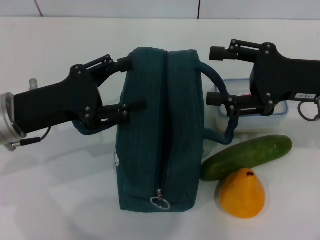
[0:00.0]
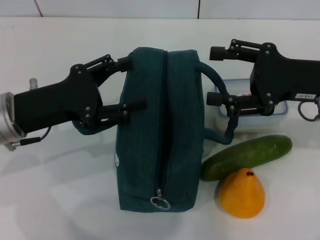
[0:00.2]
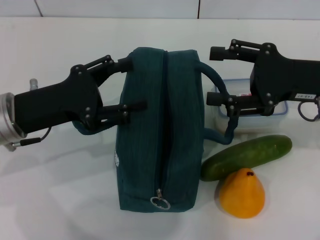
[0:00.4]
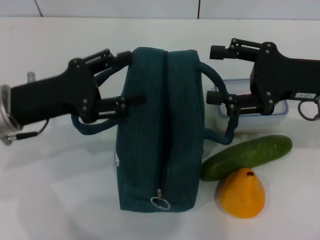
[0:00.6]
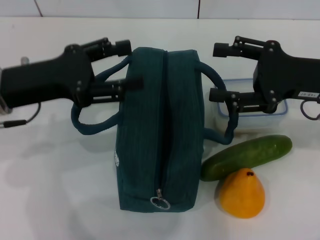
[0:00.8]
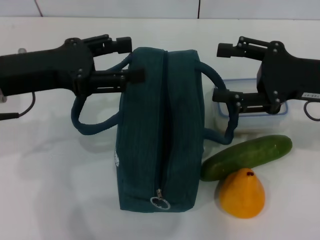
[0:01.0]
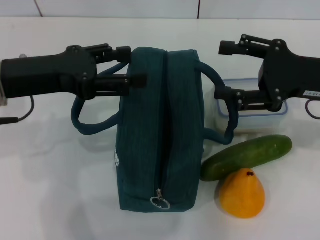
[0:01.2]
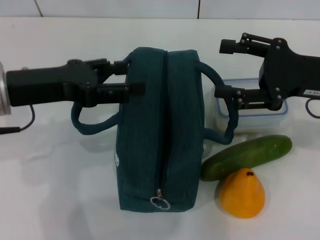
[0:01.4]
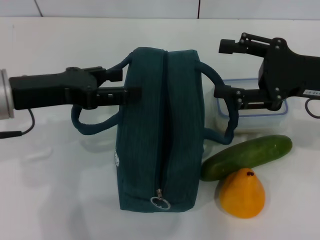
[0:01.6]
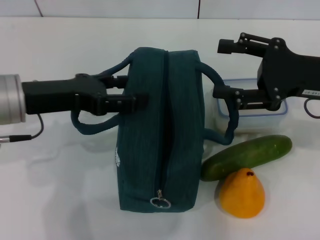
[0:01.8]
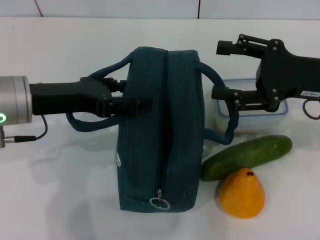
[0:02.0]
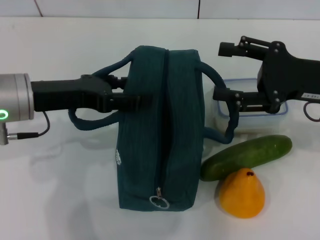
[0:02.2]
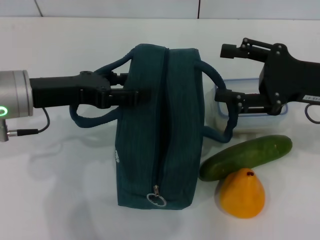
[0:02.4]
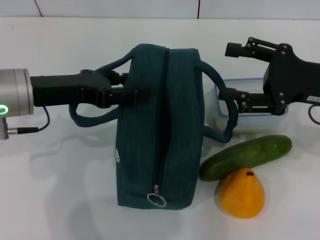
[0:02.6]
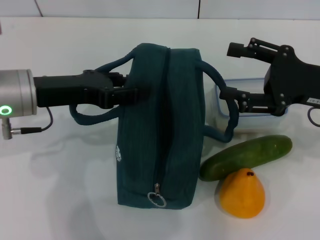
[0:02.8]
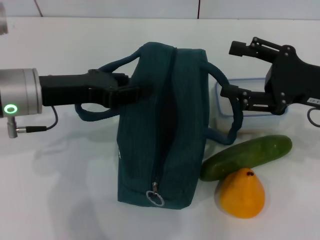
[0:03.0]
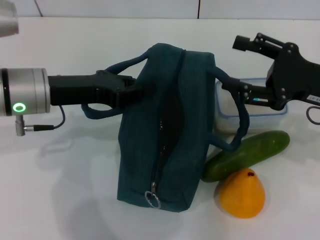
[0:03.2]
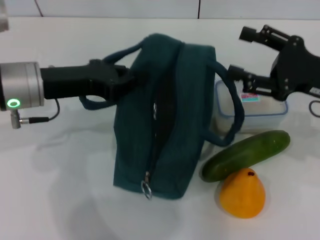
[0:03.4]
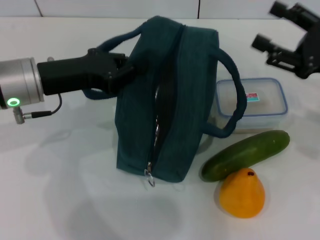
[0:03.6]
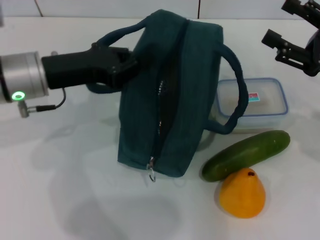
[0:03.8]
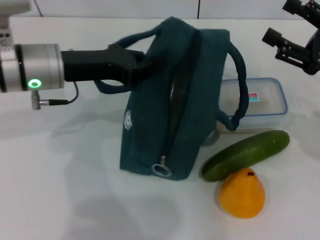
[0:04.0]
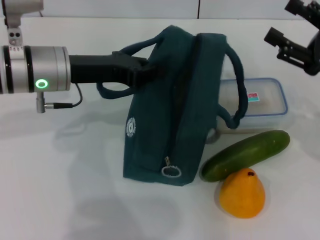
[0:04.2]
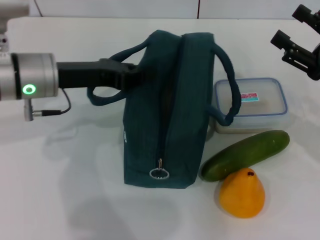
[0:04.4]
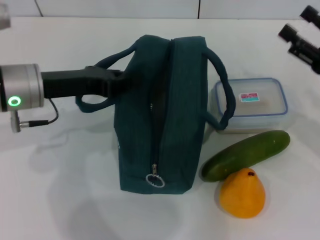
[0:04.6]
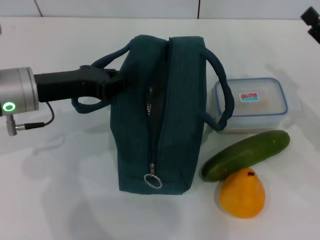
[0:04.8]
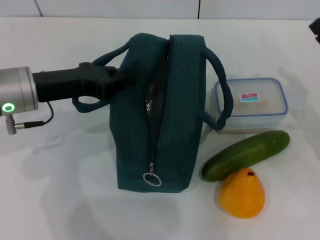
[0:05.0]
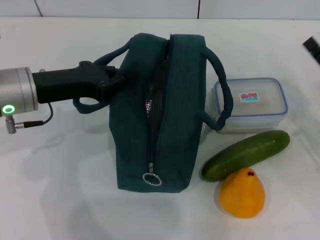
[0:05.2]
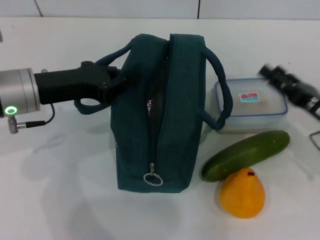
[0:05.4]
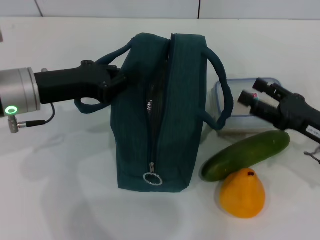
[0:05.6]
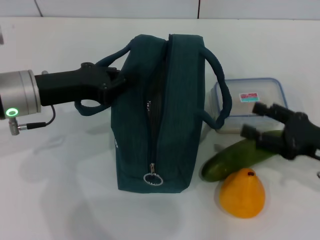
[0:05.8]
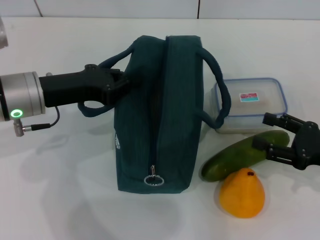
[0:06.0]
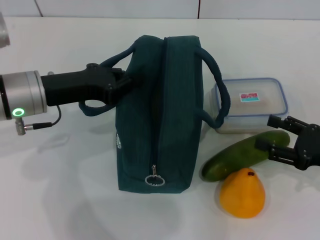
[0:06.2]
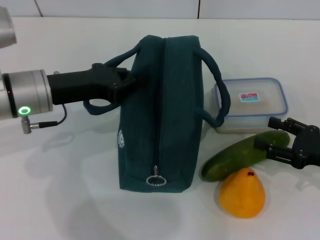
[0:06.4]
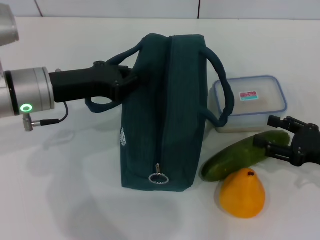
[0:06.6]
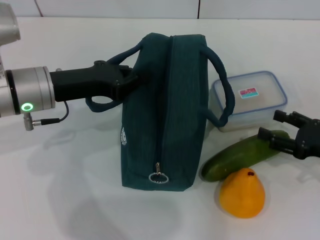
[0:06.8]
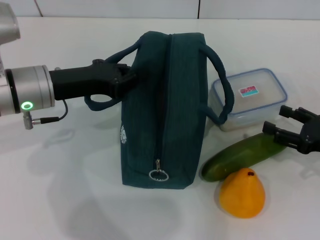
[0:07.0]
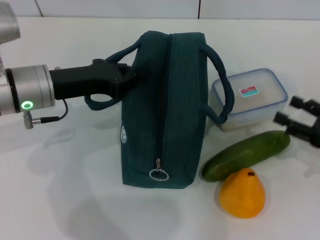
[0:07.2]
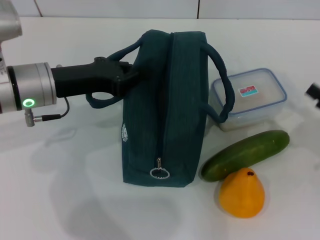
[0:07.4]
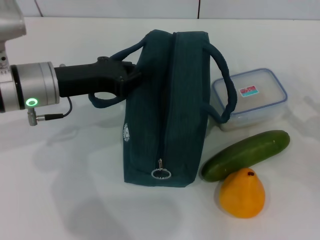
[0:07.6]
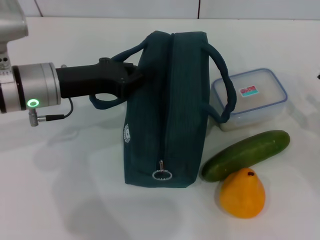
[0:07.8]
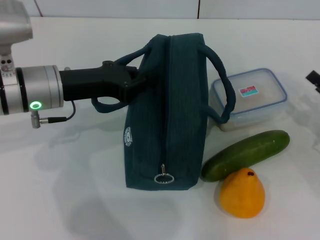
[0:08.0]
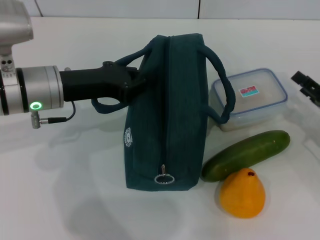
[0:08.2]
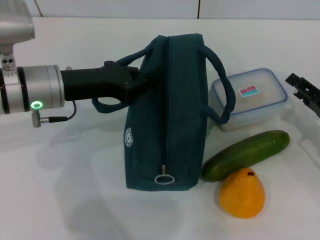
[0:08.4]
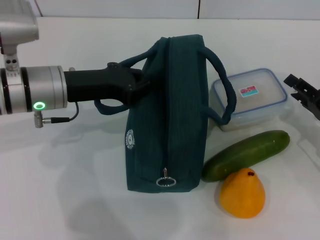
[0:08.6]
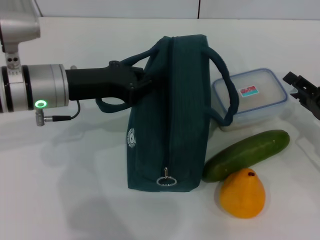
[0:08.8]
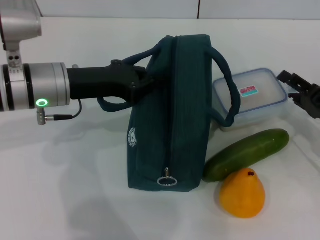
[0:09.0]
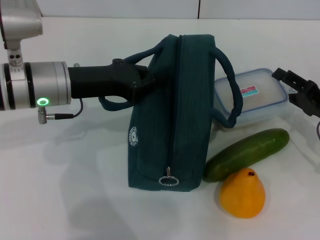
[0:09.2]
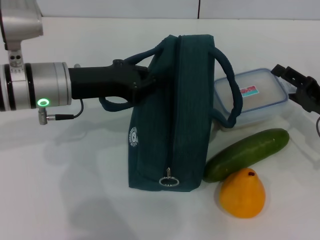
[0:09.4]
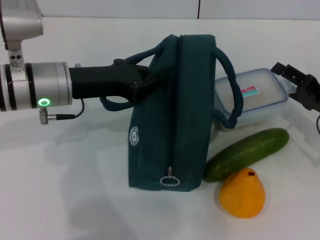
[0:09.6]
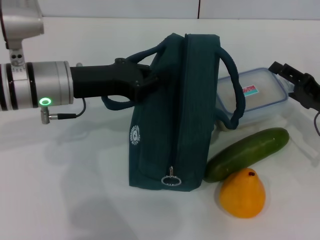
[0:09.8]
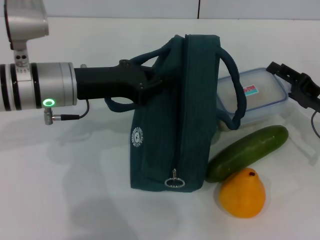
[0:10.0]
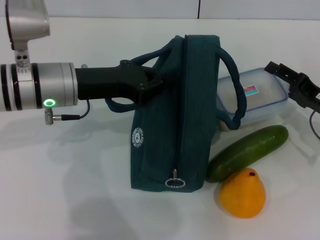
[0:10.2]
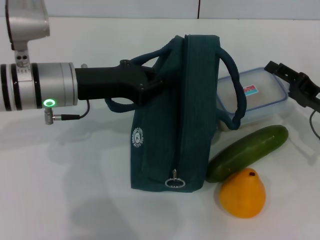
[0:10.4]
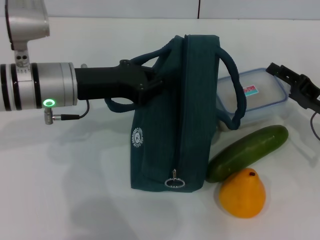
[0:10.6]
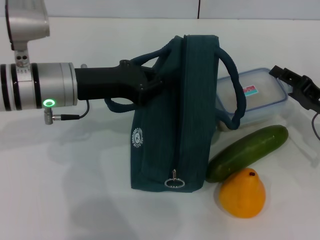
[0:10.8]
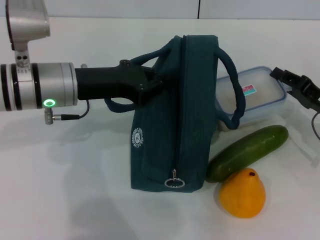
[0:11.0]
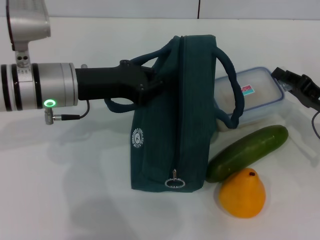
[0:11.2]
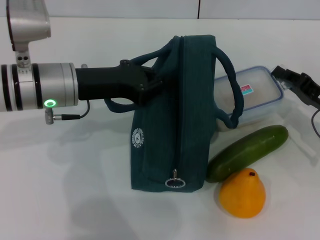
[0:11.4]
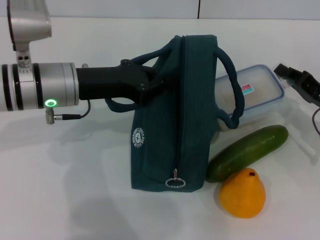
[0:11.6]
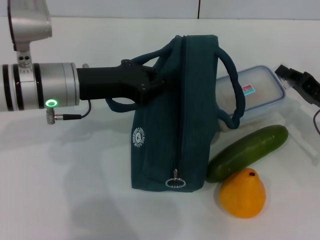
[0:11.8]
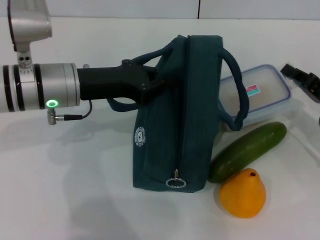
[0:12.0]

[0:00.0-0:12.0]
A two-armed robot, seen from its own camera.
Step, 0:00.0 to 0:03.6: Hold the lunch bag with your left hand.
Step, 0:03.8 to 0:11.6: Pick up the lunch box with your right hand.
0:01.6 to 0:03.0: The left gripper closes up.
0:03.0 to 0:04.4: The left gripper closes its fingers.
0:04.4 to 0:06.0: The right gripper travels downward and backward by roughly 10 cm.
0:07.6 to 0:09.0: The right gripper moves forward, some 5 cm.
0:09.0 to 0:10.4: The grippers move only a little.
0:10.4 to 0:12.0: The right gripper closes.

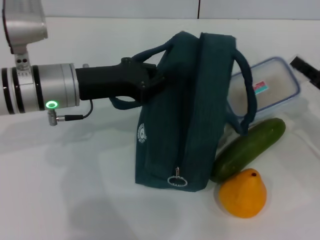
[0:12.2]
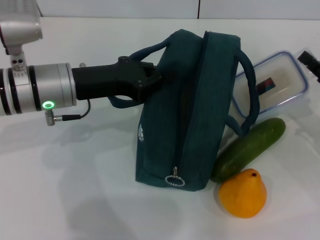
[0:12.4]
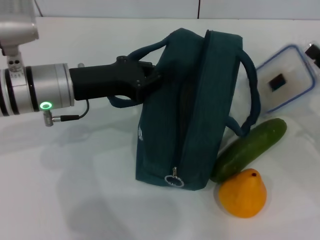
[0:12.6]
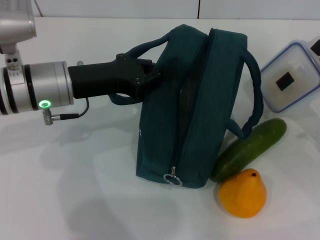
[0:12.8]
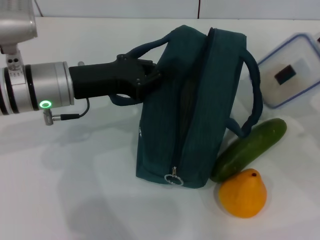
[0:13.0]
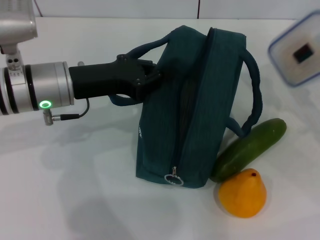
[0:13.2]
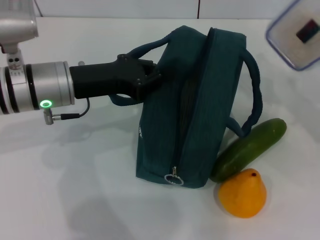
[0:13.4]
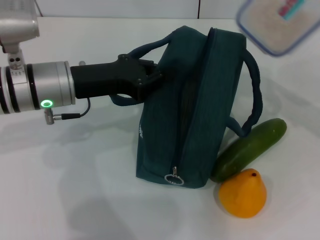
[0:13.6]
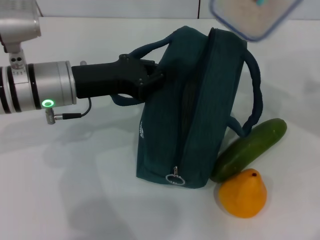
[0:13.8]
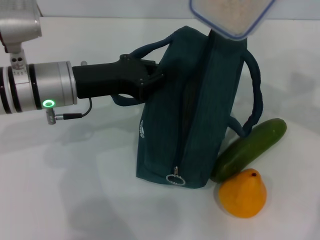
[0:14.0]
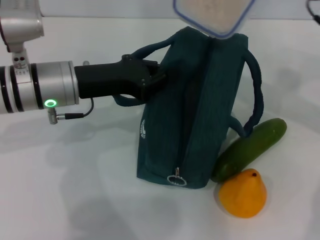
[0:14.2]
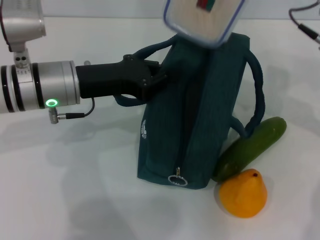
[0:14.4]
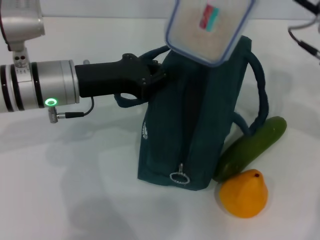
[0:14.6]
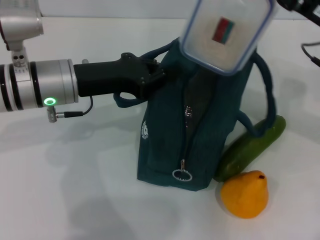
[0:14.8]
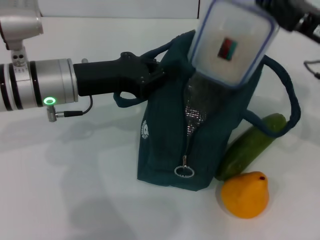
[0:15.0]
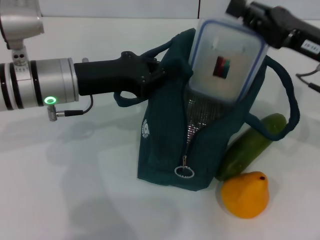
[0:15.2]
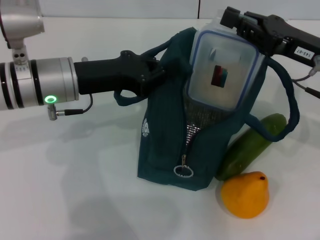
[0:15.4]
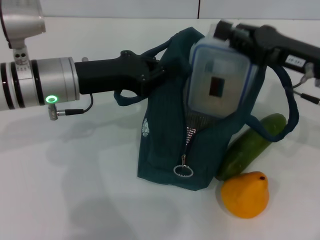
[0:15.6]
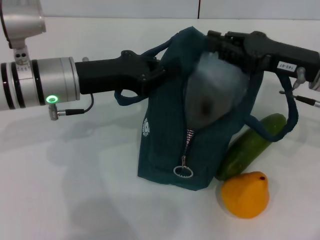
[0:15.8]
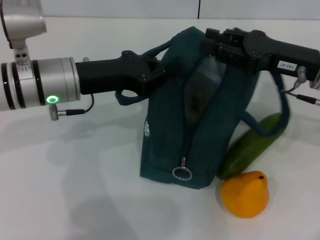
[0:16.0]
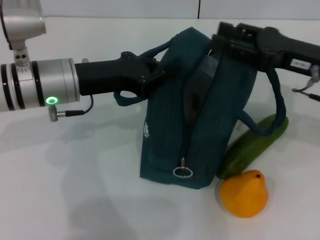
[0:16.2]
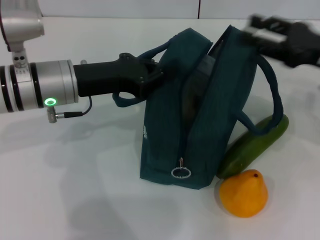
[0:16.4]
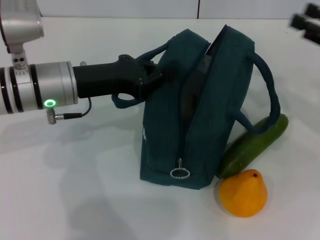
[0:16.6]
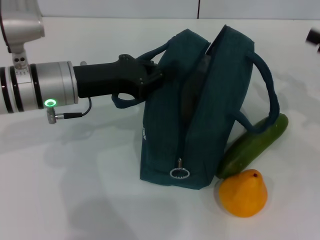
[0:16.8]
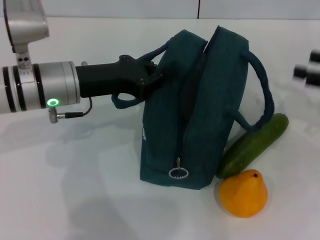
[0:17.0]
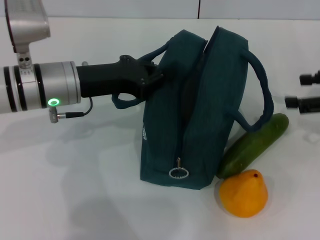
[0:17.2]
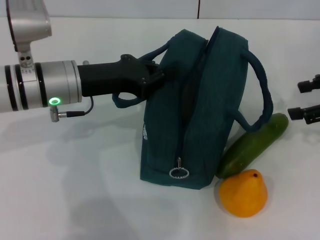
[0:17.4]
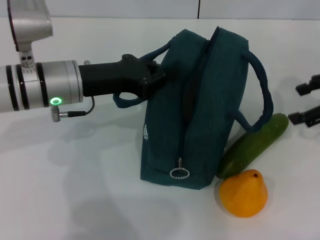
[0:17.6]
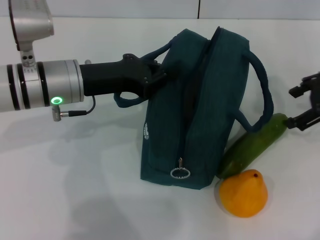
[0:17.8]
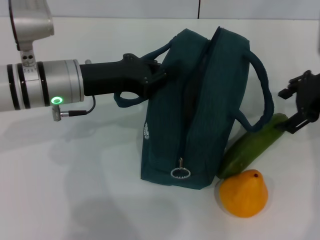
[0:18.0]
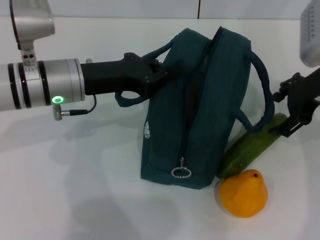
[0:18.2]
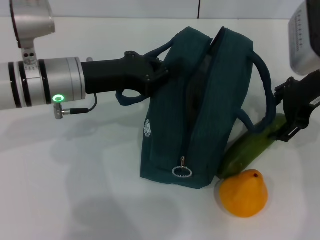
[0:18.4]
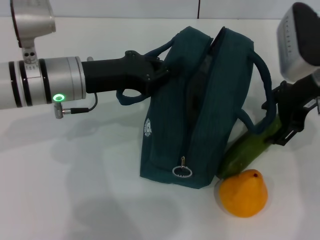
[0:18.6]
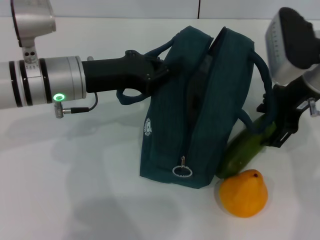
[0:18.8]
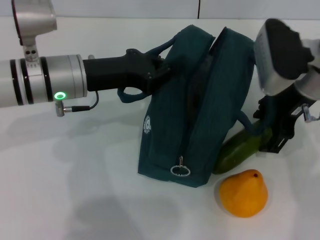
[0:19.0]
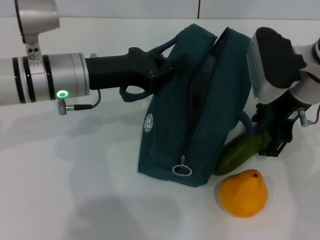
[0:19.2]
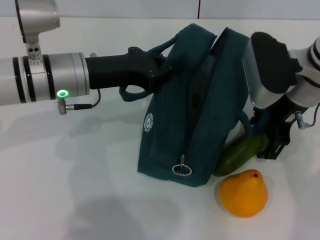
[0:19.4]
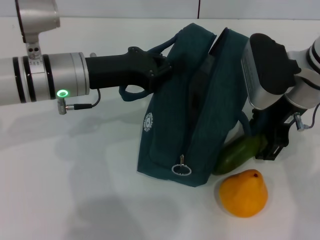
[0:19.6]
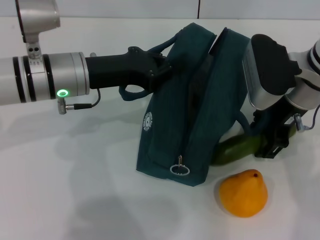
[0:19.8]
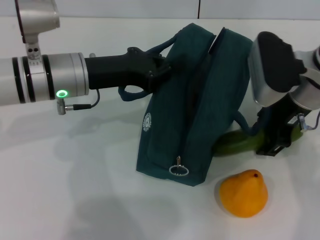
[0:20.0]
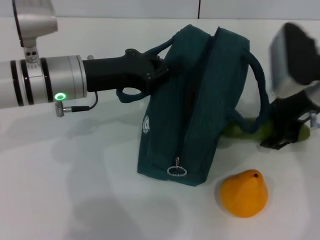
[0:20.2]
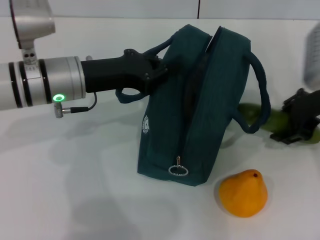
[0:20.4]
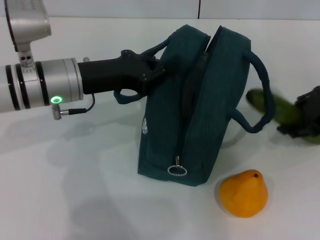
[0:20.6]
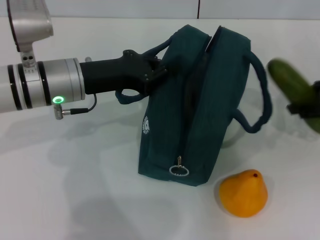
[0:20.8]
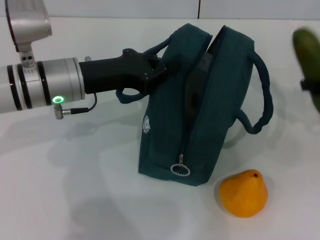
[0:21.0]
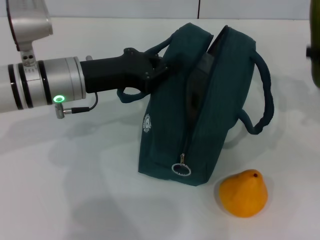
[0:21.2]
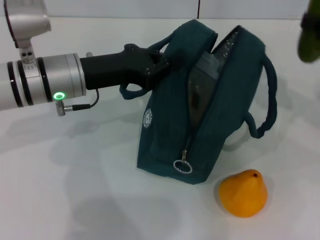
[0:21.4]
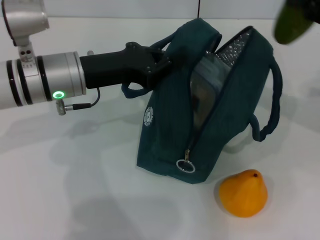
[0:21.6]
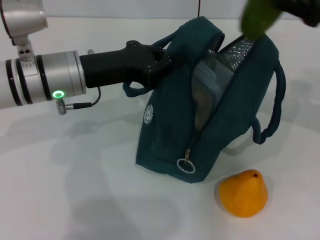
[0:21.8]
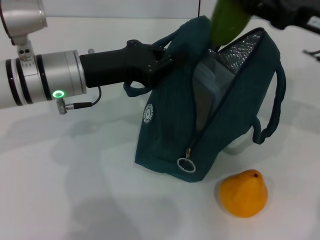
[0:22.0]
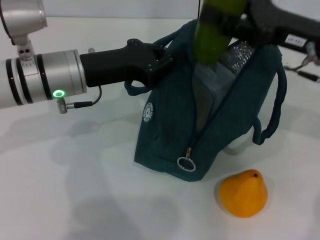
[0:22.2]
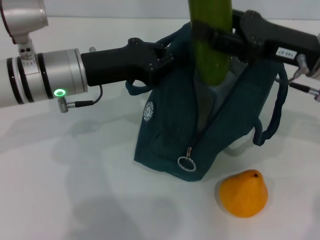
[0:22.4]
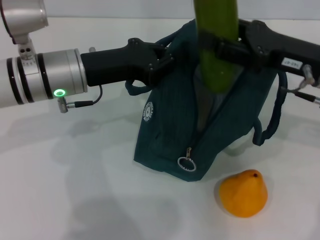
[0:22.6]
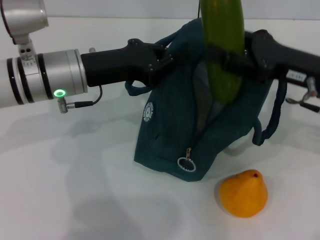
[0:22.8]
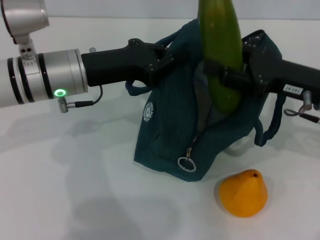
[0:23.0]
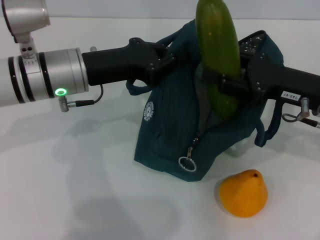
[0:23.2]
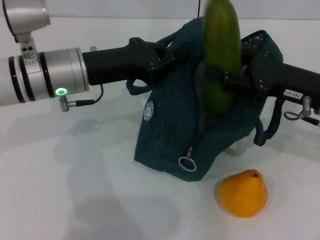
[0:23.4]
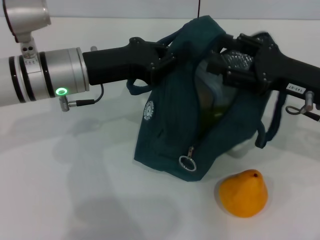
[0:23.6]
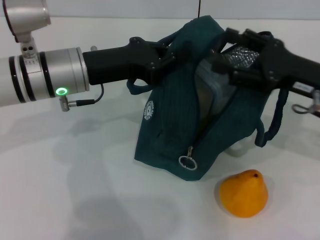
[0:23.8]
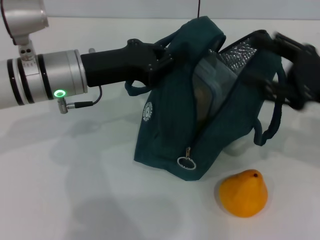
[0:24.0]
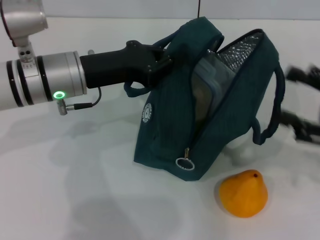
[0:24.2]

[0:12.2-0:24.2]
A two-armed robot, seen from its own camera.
Step, 0:12.2 to 0:15.8: Place the lunch box into the lunch bag with your right hand.
Step, 0:16.2 to 0:20.0: Pick up the cucumber with your right hand.
Step, 0:20.2 to 0:23.4: Put the cucumber into the lunch bag with your right hand.
0:12.2 to 0:13.8: The right gripper moves upward, roughly 15 cm.
0:15.2 to 0:16.6: The right gripper is displaced to the right by approximately 10 cm, and opens.
0:16.6 to 0:18.2: The right gripper travels to the left and forward by about 10 cm.
0:18.2 to 0:19.8: The right gripper goes about 5 cm to the left.
0:19.8 to 0:21.2: The right gripper moves to the right, approximately 20 cm.
0:21.2 to 0:22.6: The right gripper heads to the left, covering approximately 15 cm.
0:22.6 to 0:24.2: The right gripper goes roughly 15 cm to the right and backward, and opens its fingers.
